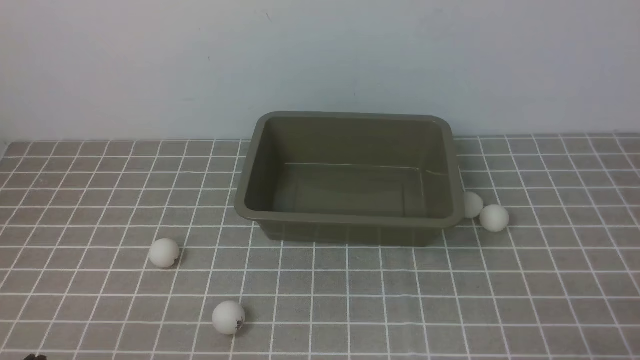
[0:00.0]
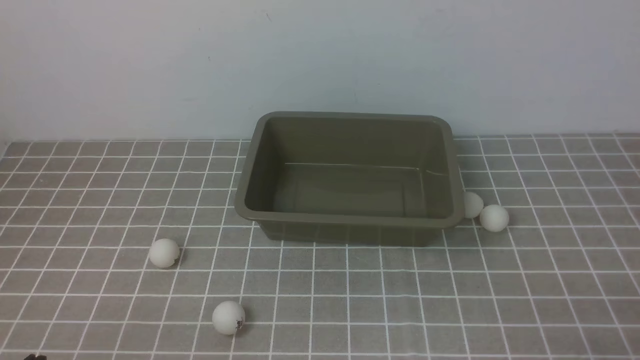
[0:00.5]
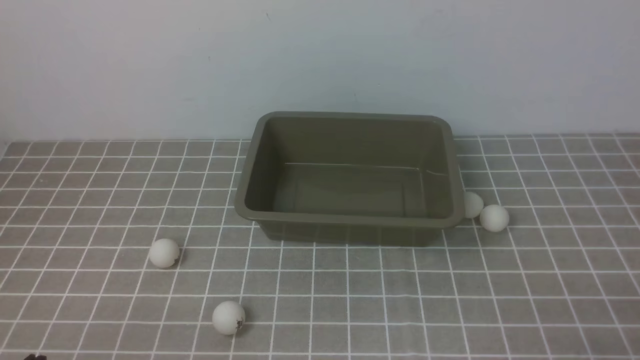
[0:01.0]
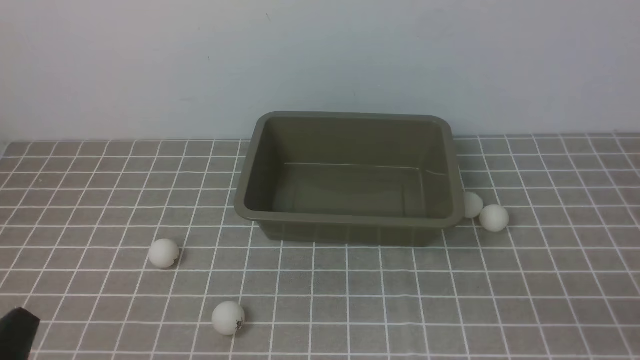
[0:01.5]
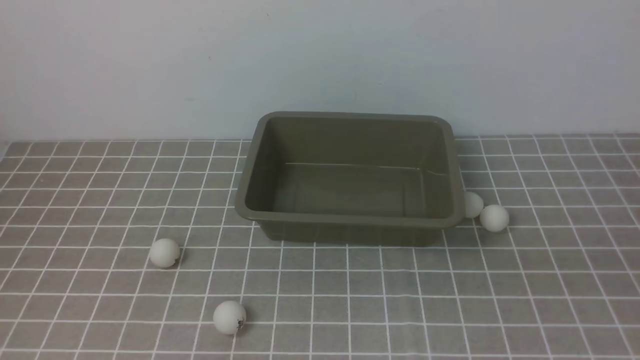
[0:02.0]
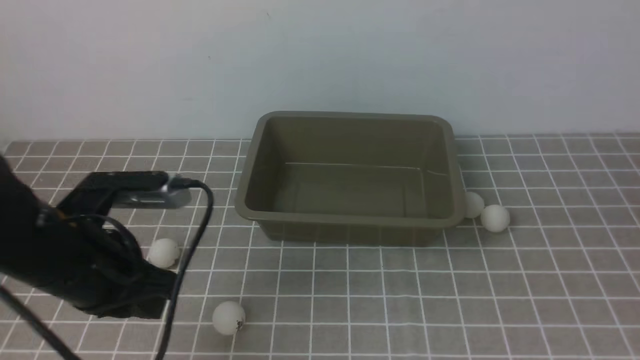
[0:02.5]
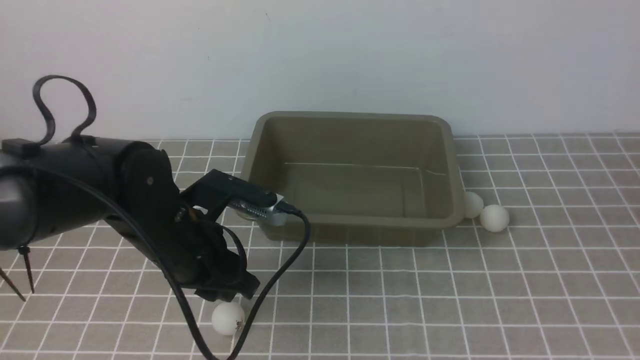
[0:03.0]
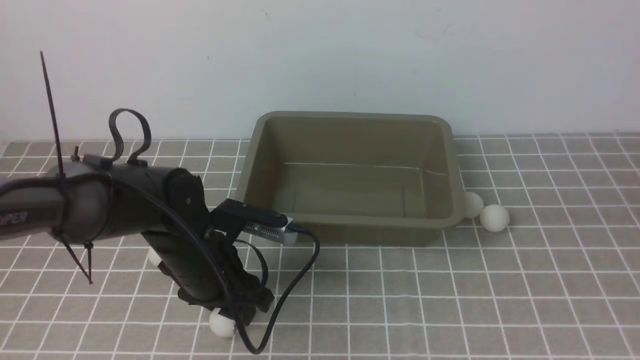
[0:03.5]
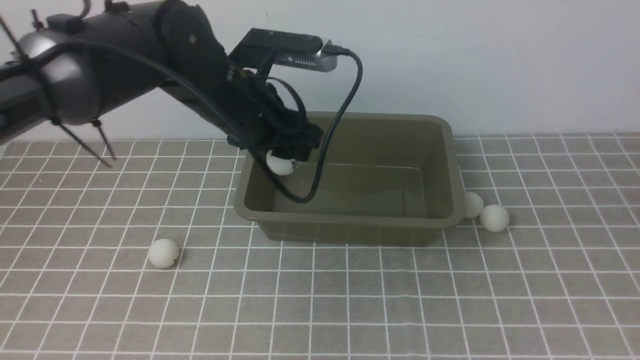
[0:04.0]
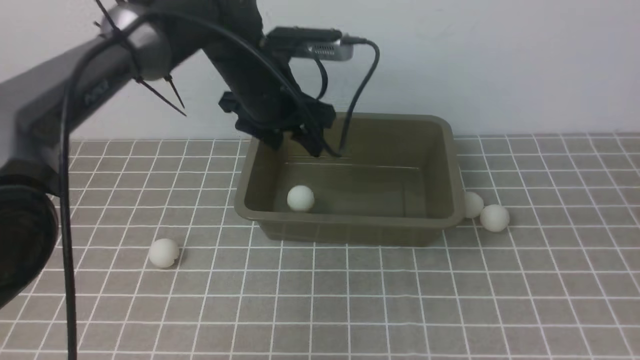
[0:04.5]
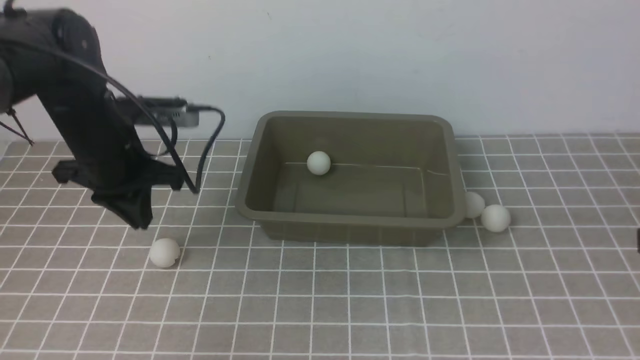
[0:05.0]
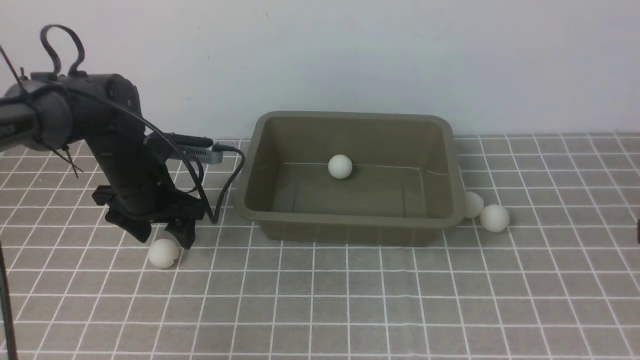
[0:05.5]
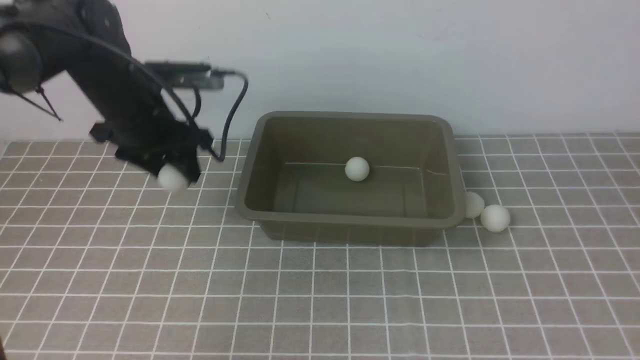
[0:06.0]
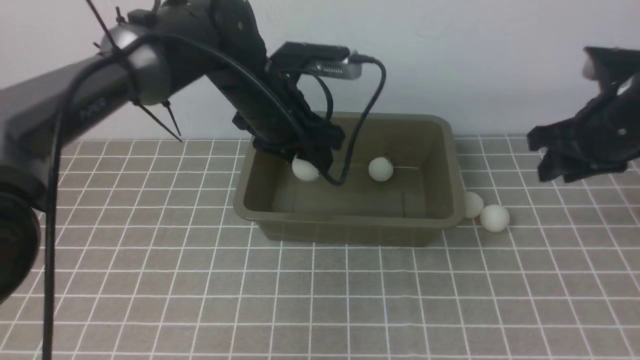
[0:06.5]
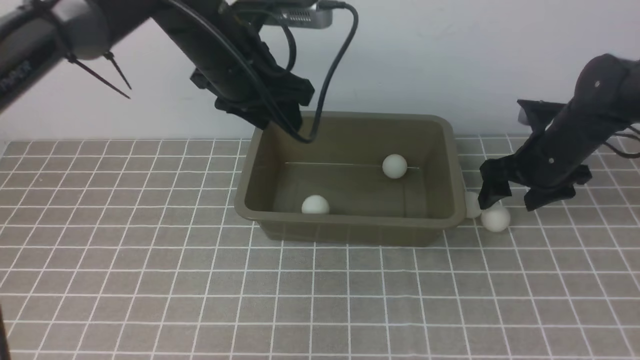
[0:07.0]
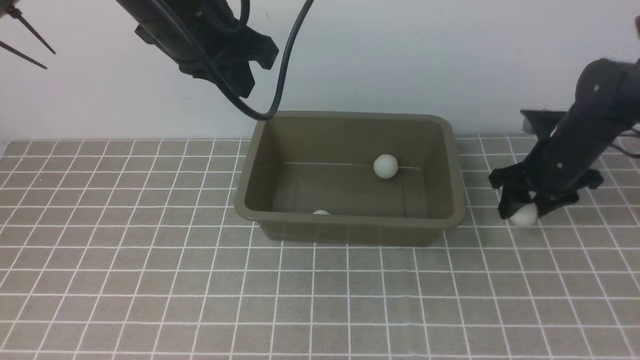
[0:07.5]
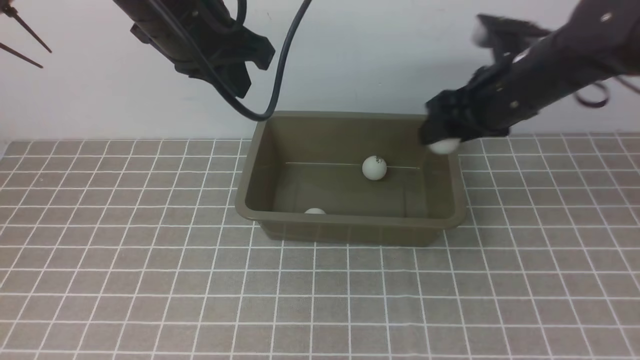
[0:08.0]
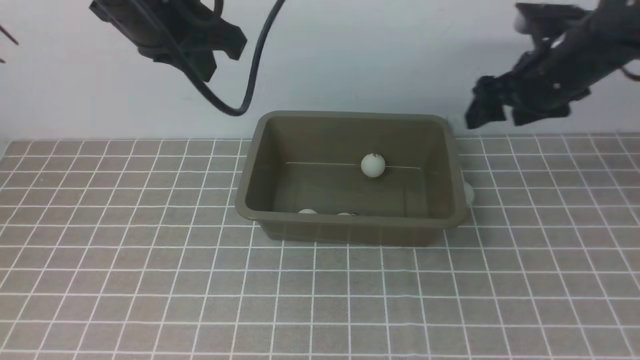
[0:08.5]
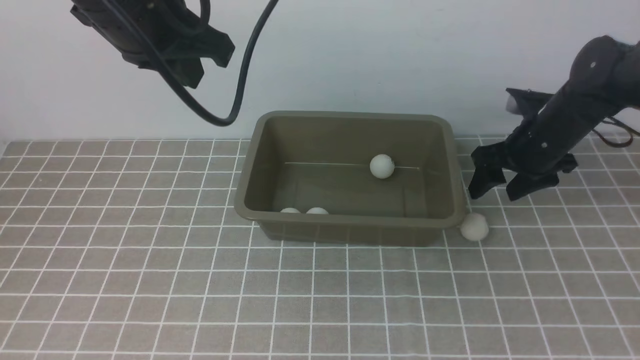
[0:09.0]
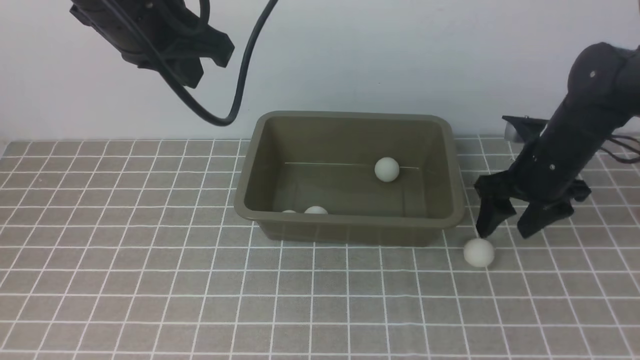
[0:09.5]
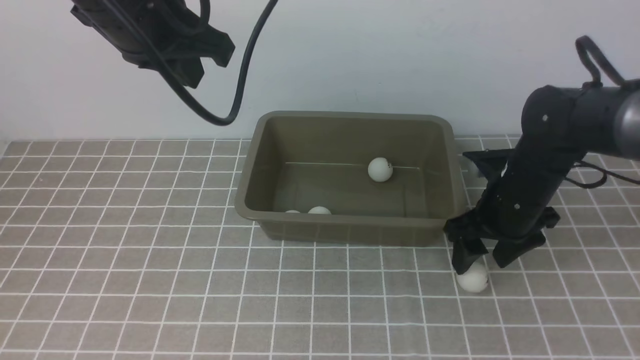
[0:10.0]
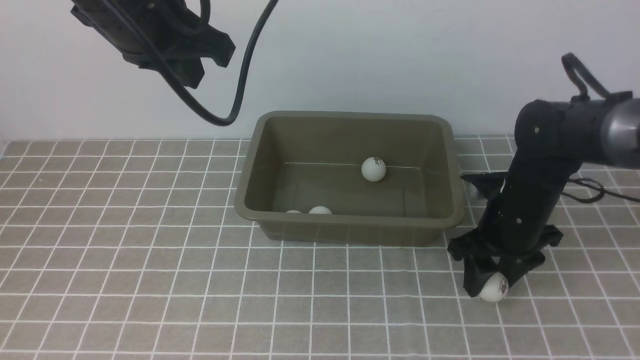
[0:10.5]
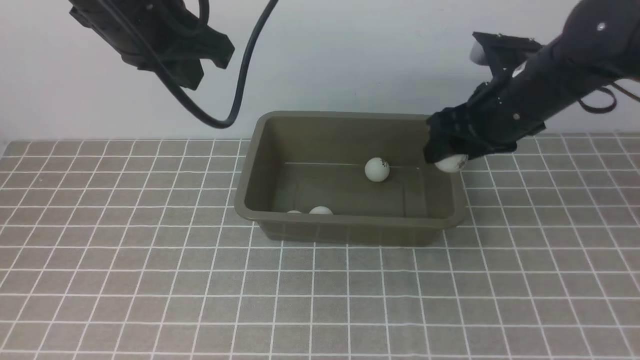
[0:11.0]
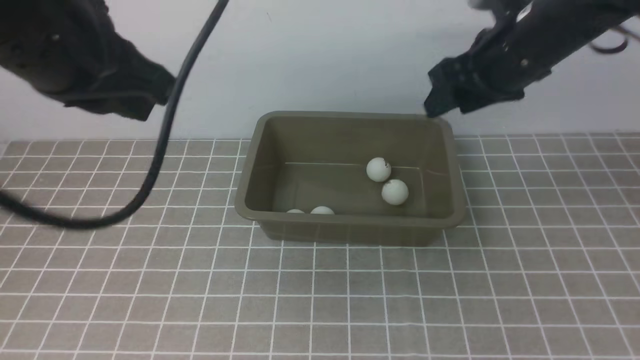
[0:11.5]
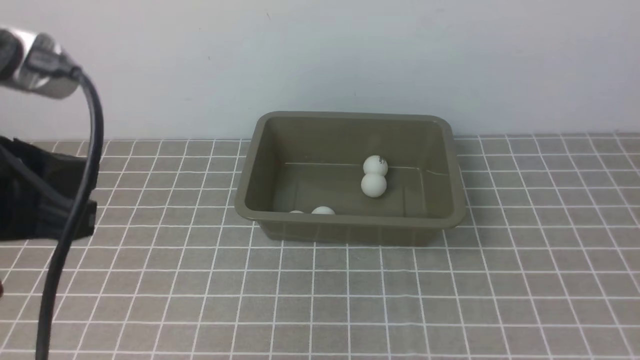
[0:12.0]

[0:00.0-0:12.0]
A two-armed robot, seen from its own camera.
Step, 0:00.0 to 0:03.5: use the left arm to clamp the table tennis ball closest to it.
Step, 0:04.0 to 0:04.5: use the left arm to put the table tennis ball into the box.
Step, 0:05.0 to 0:05.5: use the left arm to clamp the table tennis ball closest to it.
Step, 0:06.0 to 0:06.5: use the left arm to put the table tennis ball into the box.
Step, 0:07.0 to 0:07.5: use the right arm to clamp the table tennis ball closest to it.
Step, 0:08.5 to 0:10.5: use the right arm to clamp the table tennis ball closest to it.
Step, 0:11.0 to 0:11.5: use the right arm to put the table tennis ball into the box.
0:02.0 to 0:04.0: The left gripper goes about 35 cm forward and to the right, and opens up. Meanwhile the right gripper goes roughly 10 cm forward and upward.
0:04.0 to 0:06.0: The left gripper goes roughly 10 cm to the left and forward, and closes, then reopens.
0:06.0 to 0:08.0: The right gripper shifts some 20 cm forward, and opens its fingers; the left gripper shifts about 20 cm upward and to the right, and closes.
0:08.0 to 0:10.0: The right gripper moves downward, roughly 10 cm.
0:10.0 to 0:12.0: The right gripper travels upward and backward by some 35 cm, and closes. Meanwhile the left gripper travels backward by some 15 cm.

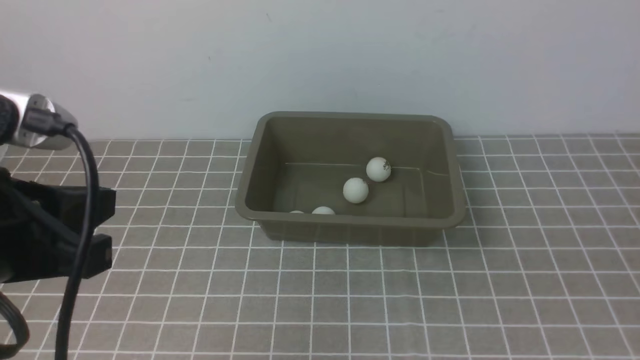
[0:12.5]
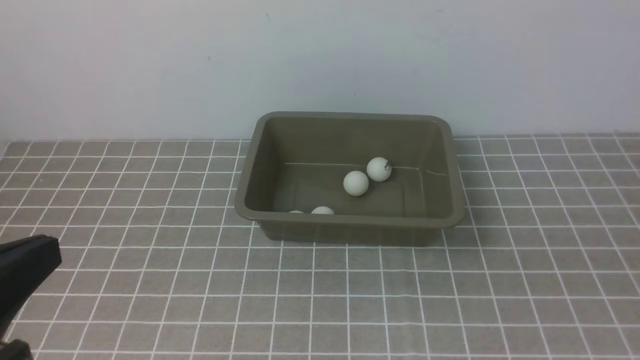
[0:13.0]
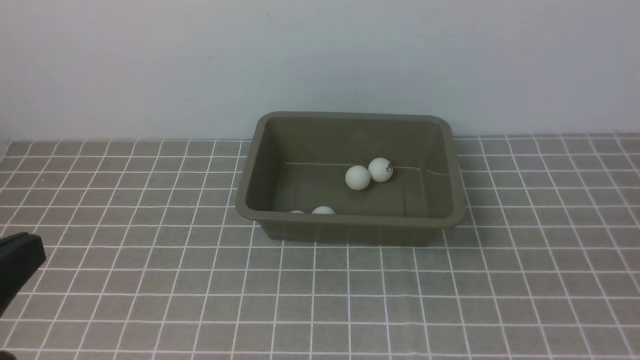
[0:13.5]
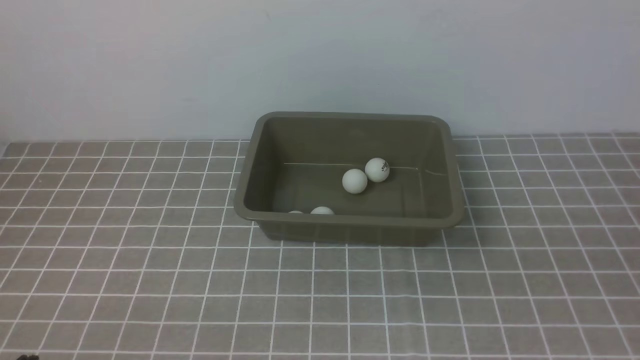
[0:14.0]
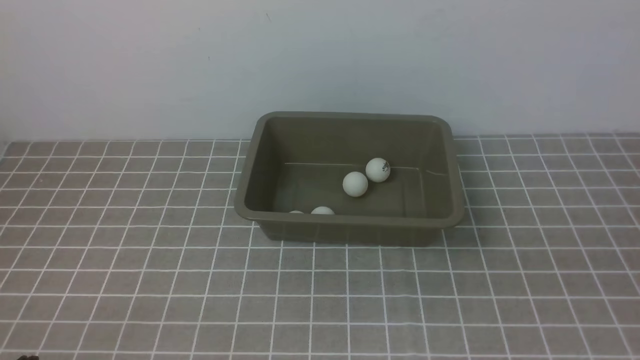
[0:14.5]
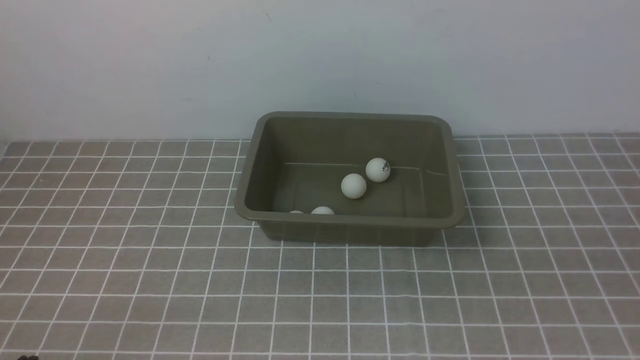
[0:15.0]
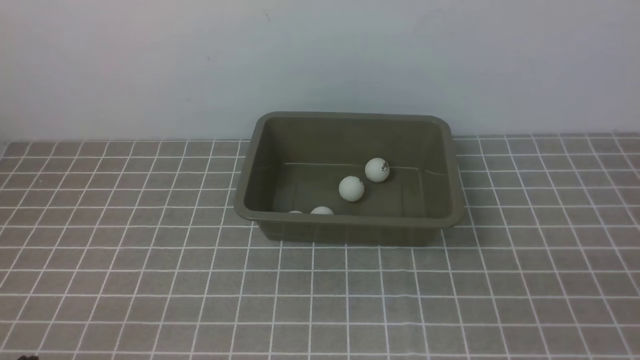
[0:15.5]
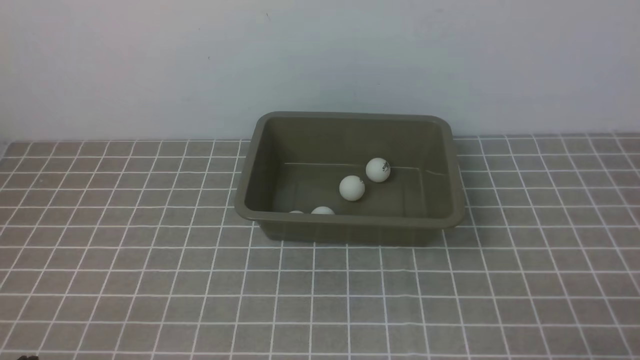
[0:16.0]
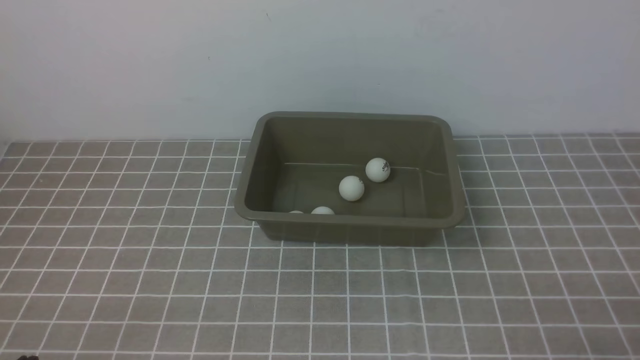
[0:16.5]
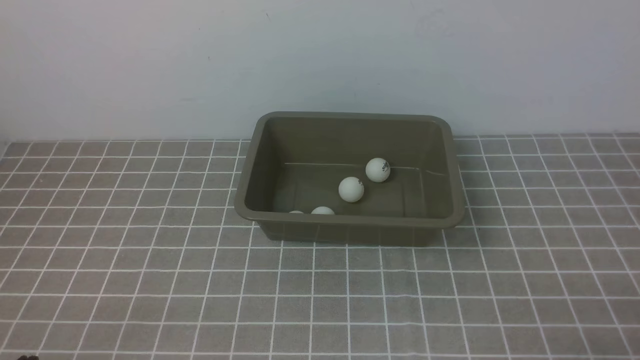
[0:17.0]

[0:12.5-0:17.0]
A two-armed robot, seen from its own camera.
0:12.5 to 0:14.5: The left gripper goes about 20 cm downward and backward.
